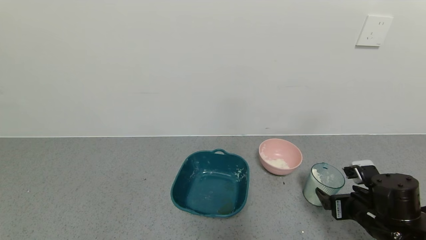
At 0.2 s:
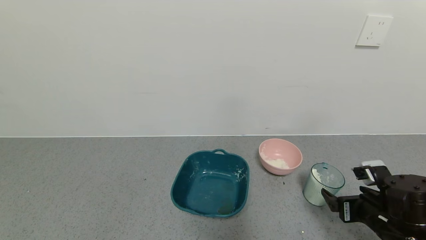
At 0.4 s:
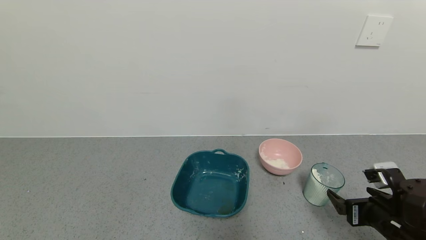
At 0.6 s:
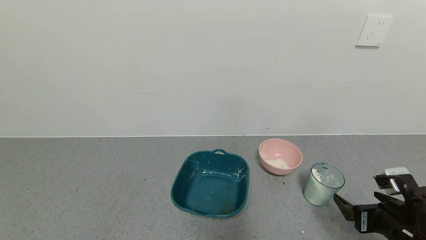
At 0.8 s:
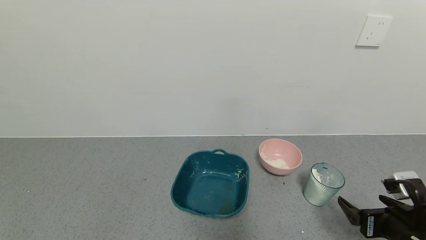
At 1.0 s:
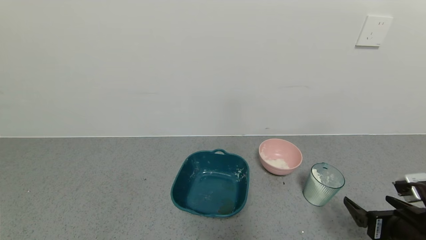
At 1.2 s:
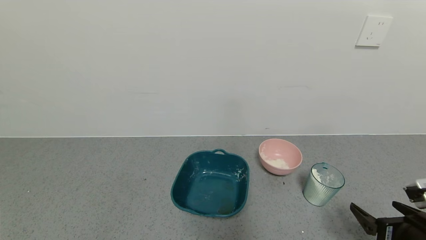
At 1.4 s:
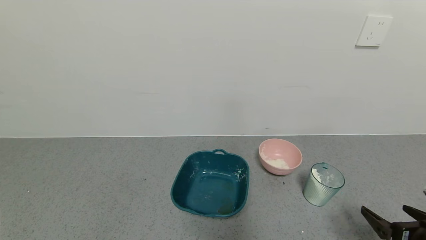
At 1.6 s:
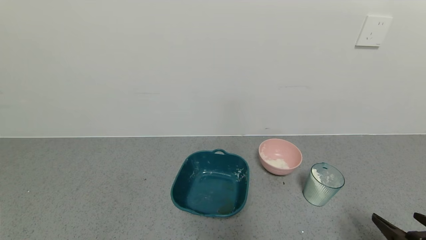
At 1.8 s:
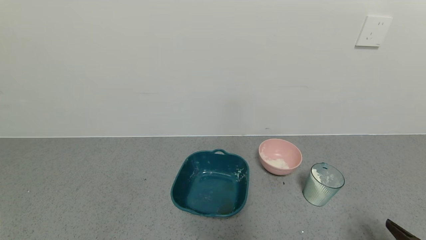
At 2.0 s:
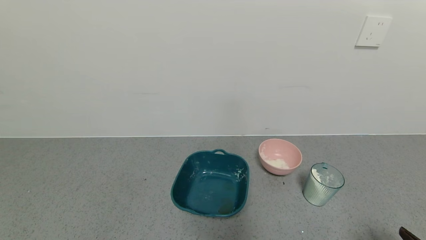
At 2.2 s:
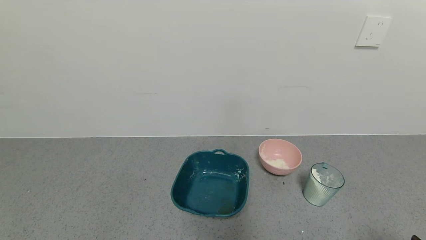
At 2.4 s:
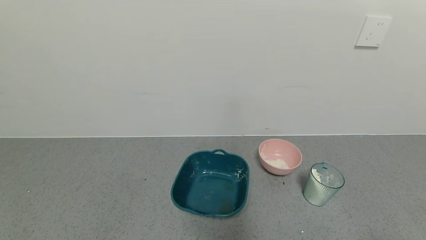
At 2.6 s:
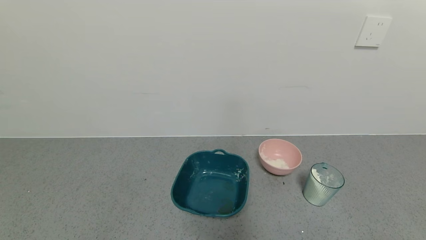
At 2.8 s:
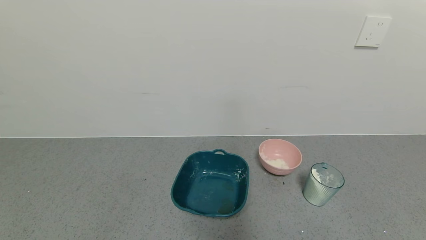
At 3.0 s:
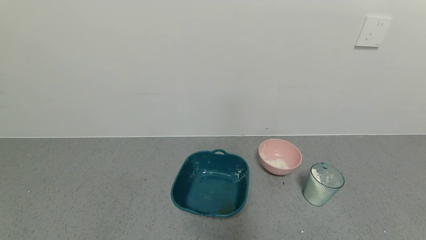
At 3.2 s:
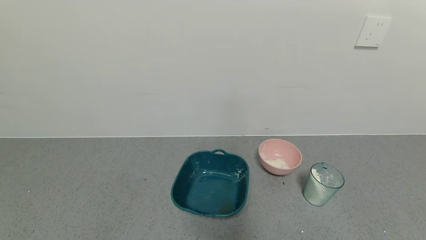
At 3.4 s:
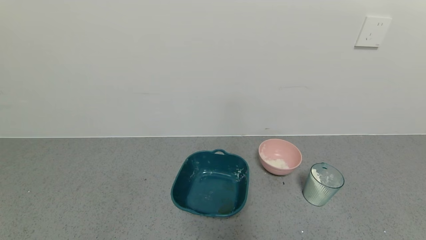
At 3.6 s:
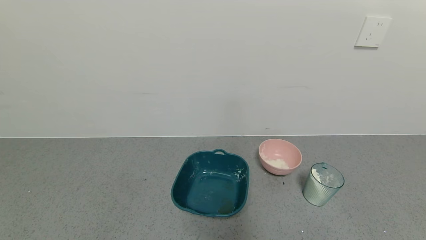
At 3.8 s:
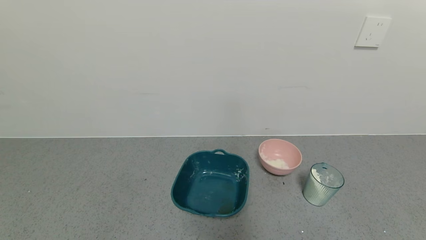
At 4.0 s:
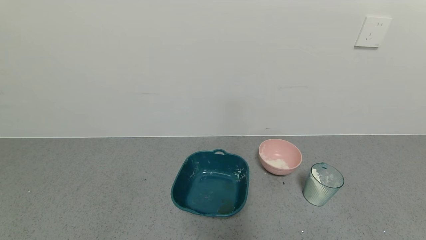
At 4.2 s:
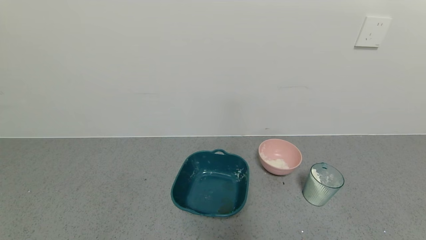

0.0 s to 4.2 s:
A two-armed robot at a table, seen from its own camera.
Task of the whole recording: use a gripper to pick up the cup and pour the powder into a bowl or tray.
0.0 to 1.4 s: The right gripper moves backward and to the right, some 10 cm.
1.4 to 2.8 s: The right gripper is displaced backward by roughly 10 cm.
